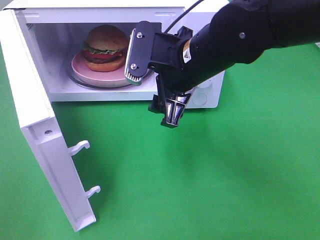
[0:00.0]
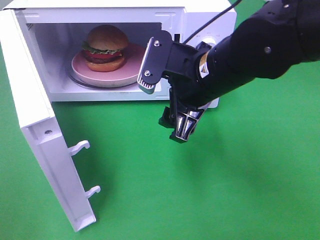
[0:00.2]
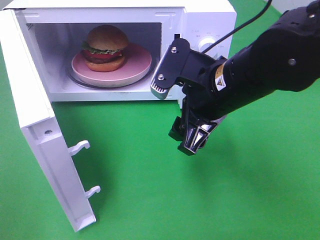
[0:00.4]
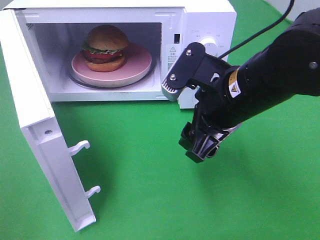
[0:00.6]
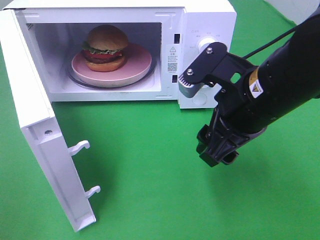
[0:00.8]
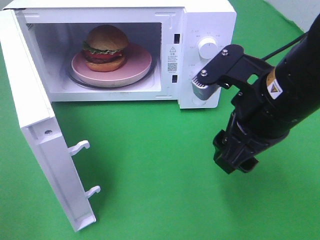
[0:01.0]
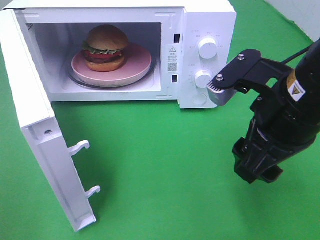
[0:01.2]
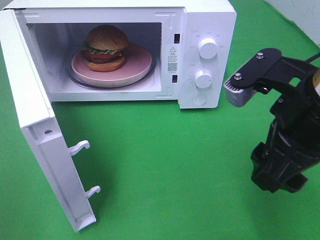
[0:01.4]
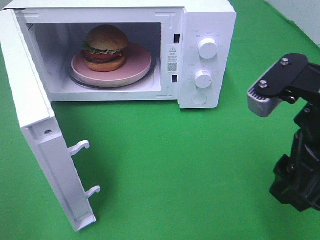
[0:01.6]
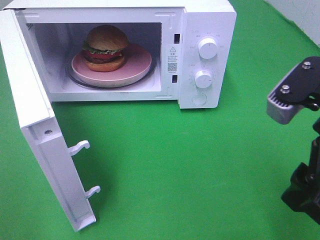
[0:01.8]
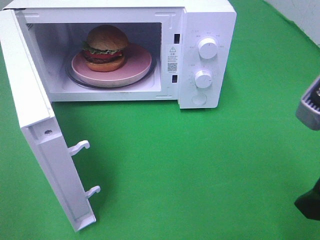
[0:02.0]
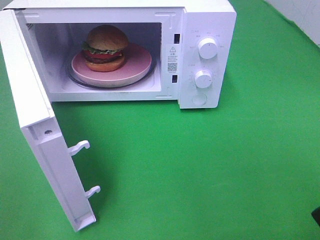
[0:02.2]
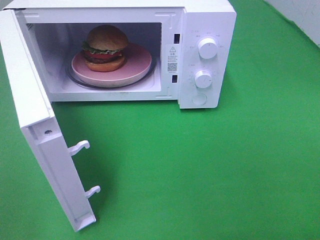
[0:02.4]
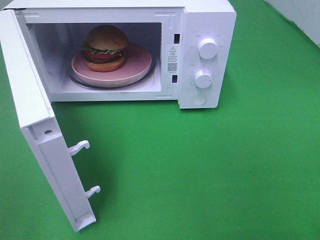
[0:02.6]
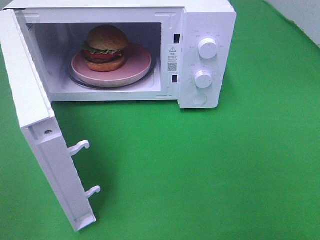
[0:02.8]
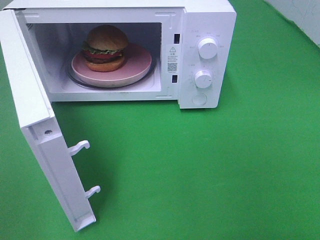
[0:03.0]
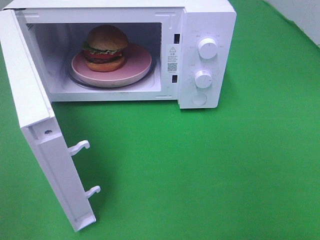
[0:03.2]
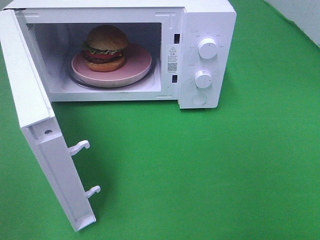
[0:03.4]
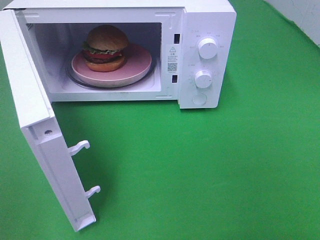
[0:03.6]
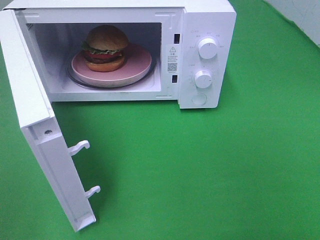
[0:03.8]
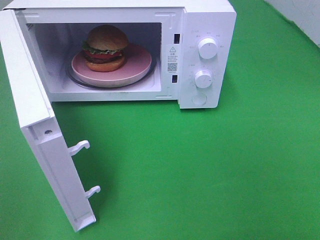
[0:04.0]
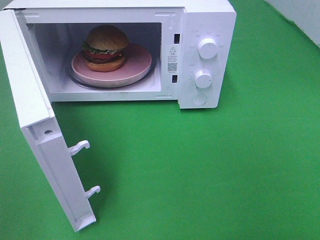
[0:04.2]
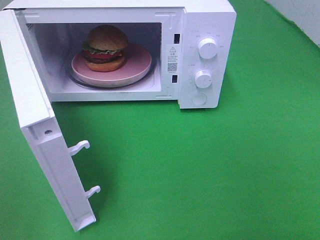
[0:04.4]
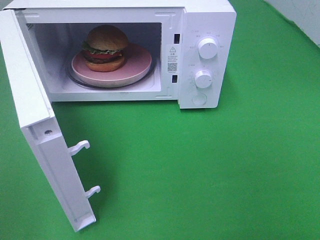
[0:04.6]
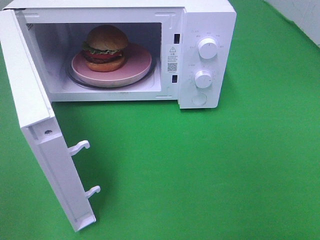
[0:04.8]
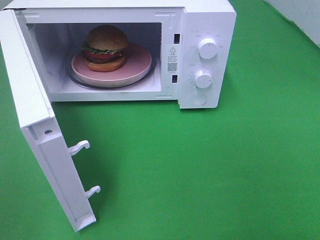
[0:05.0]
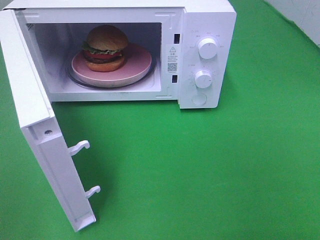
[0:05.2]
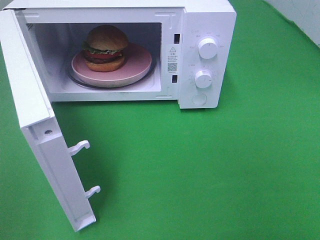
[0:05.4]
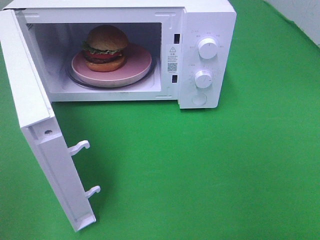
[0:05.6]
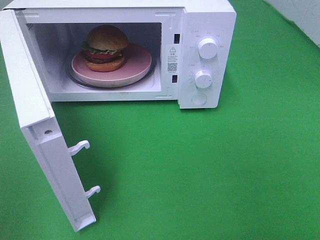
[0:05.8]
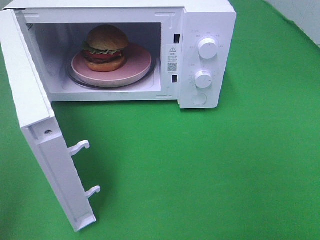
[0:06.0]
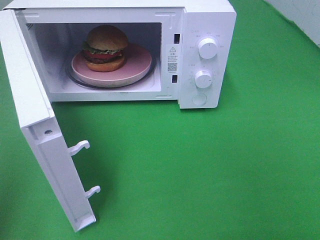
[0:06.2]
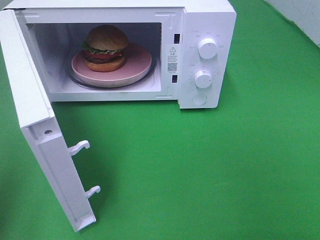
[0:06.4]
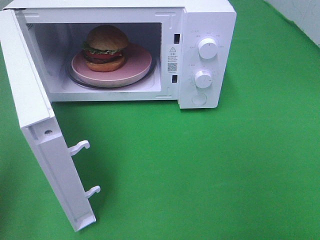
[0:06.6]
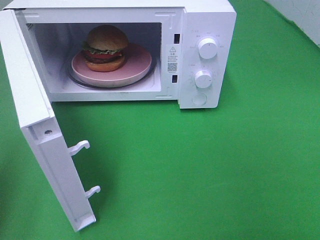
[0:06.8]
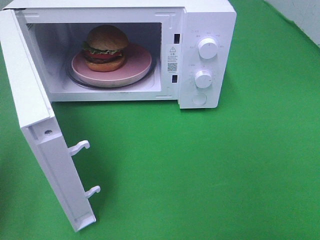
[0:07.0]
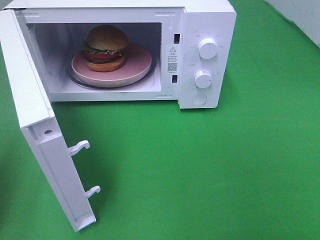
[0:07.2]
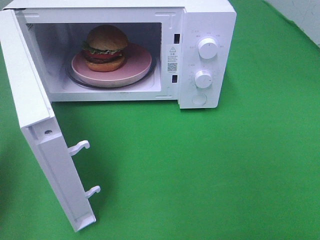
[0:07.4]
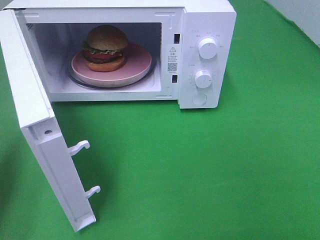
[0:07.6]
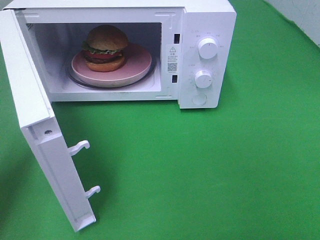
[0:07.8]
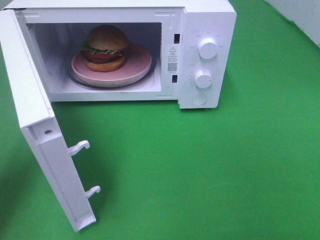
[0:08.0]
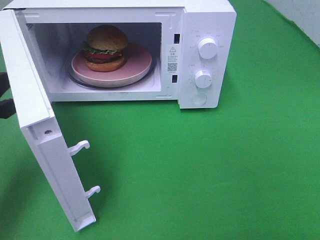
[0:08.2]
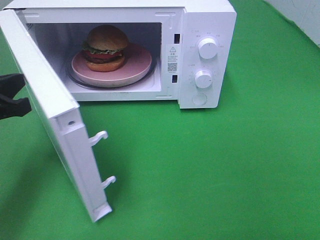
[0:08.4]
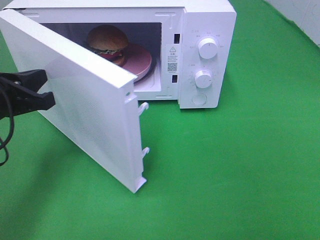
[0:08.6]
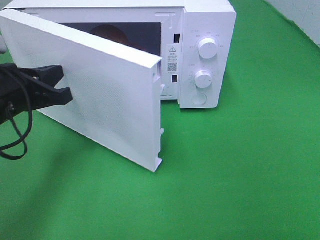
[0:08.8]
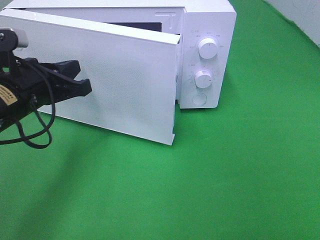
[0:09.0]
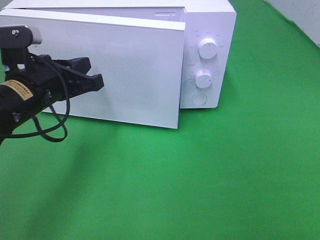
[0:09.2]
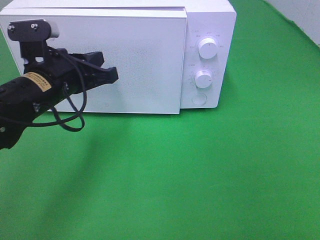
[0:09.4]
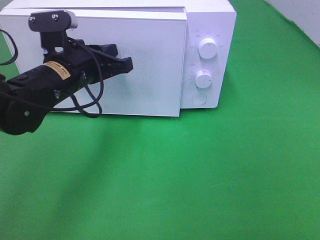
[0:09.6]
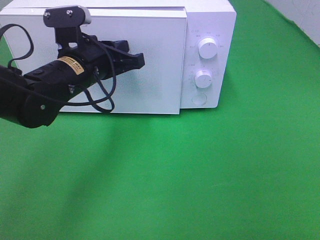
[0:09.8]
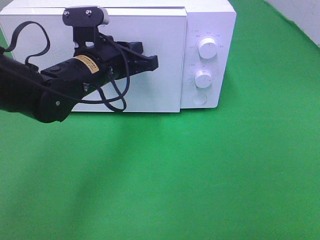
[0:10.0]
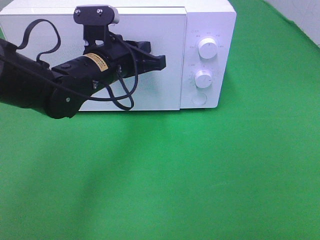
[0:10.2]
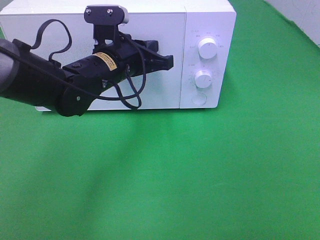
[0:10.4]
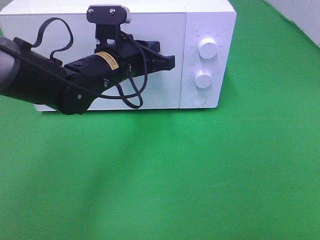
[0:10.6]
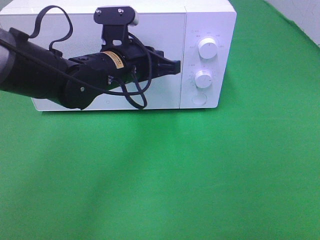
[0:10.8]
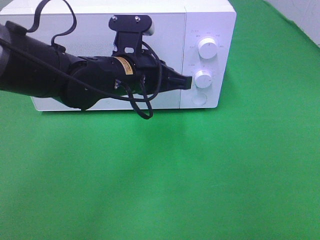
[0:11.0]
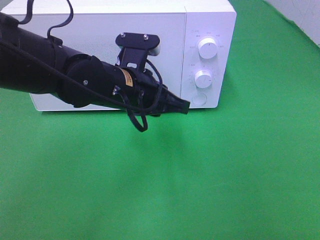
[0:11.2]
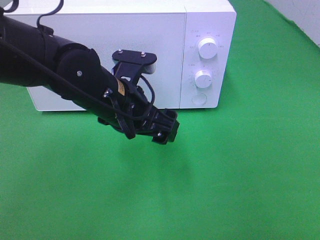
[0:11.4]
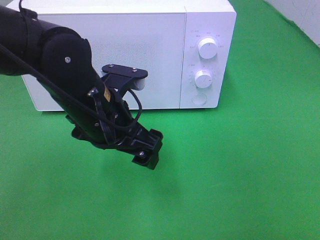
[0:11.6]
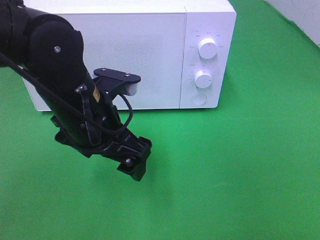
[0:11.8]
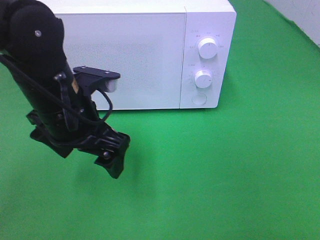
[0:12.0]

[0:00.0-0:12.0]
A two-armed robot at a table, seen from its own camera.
Task of the whole recording: Heat the burger.
Step, 0:00.0 to 0:11.0: Left hand: close the microwave door.
0:00.0 to 0:01.6: The right gripper travels backward and to the right by about 20 cm.
0:01.6 to 0:03.0: The right gripper travels backward and to the right by about 15 cm.
0:06.0 to 0:07.6: The left gripper goes approximately 15 cm forward and downward, and closes.
0:07.6 to 0:09.0: The left gripper is displaced to the right and forward by about 15 cm.
0:09.0 to 0:10.4: The left gripper moves to the right and forward, about 15 cm.
0:10.4 to 0:12.0: The left gripper travels backward by roughly 10 cm, and opens its fingers.

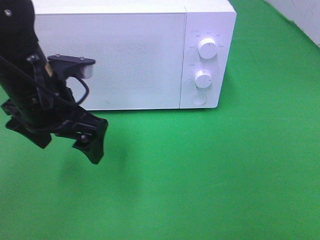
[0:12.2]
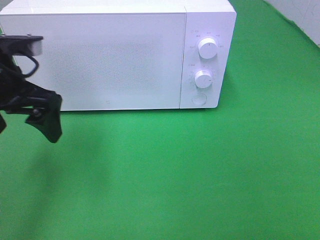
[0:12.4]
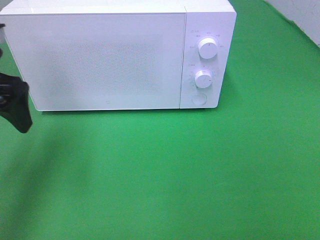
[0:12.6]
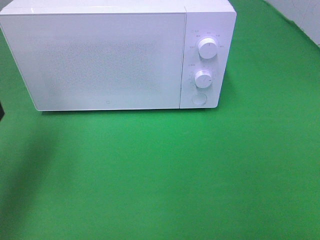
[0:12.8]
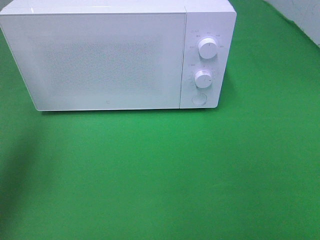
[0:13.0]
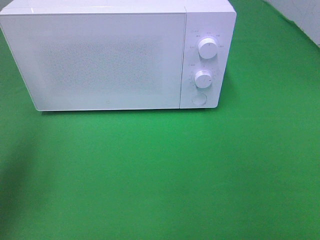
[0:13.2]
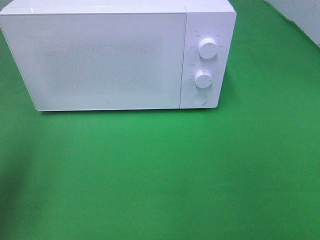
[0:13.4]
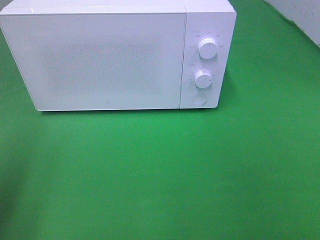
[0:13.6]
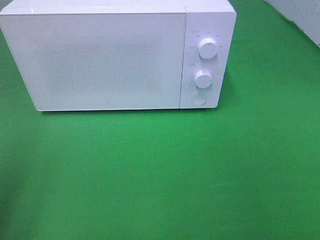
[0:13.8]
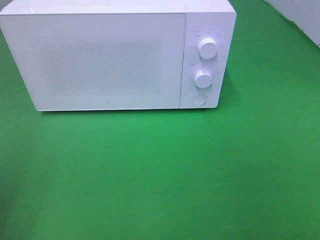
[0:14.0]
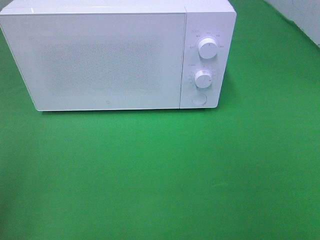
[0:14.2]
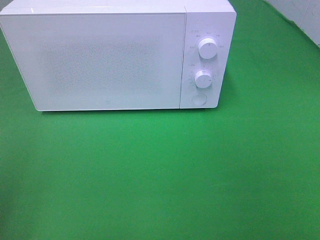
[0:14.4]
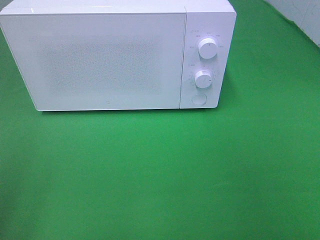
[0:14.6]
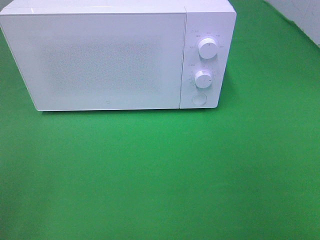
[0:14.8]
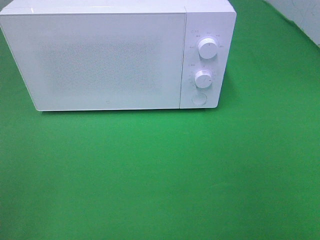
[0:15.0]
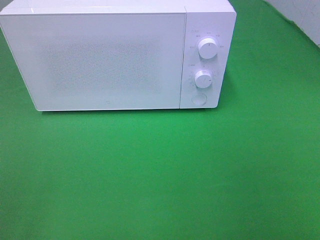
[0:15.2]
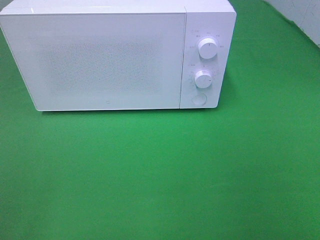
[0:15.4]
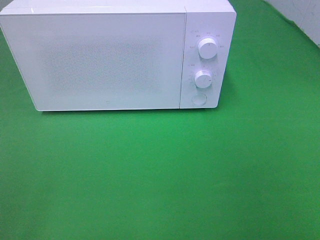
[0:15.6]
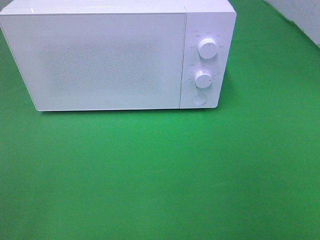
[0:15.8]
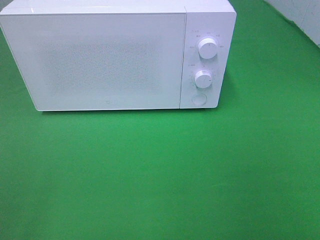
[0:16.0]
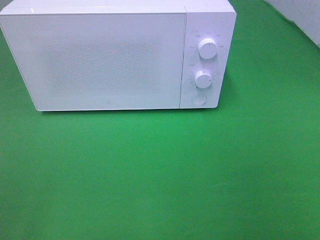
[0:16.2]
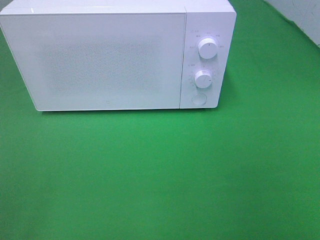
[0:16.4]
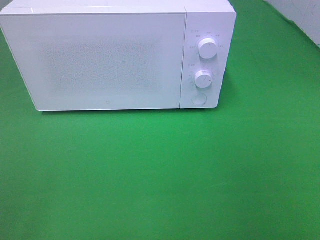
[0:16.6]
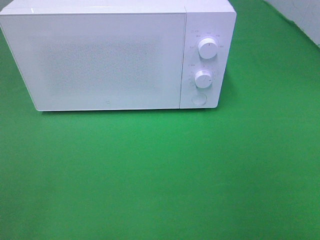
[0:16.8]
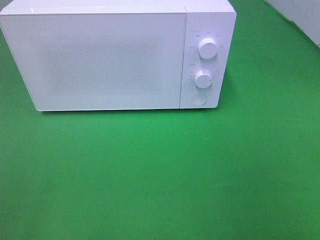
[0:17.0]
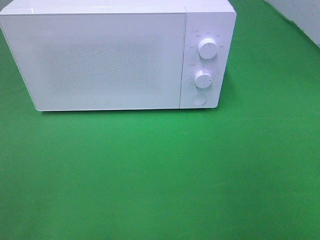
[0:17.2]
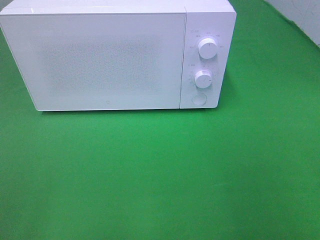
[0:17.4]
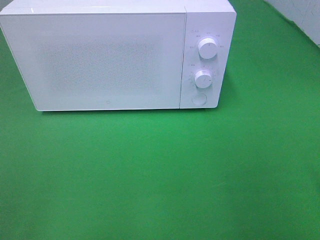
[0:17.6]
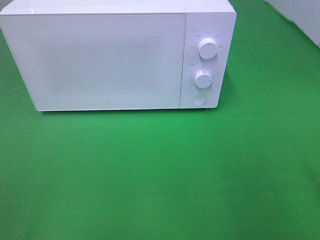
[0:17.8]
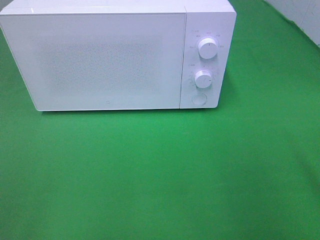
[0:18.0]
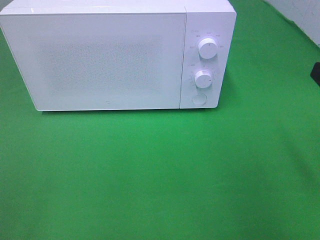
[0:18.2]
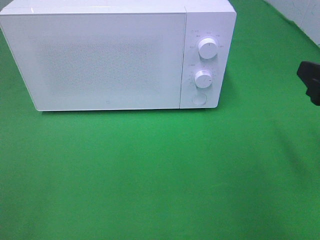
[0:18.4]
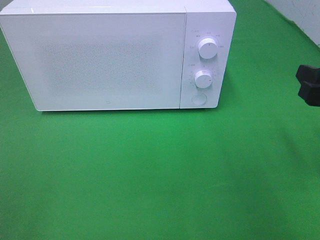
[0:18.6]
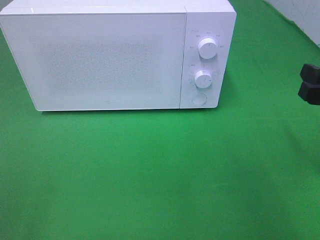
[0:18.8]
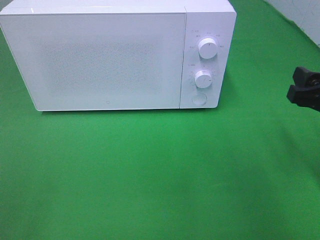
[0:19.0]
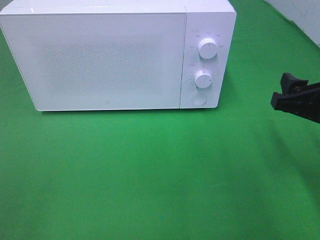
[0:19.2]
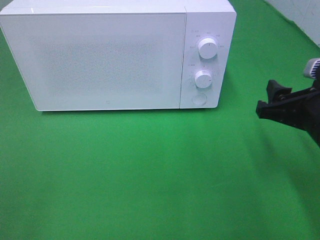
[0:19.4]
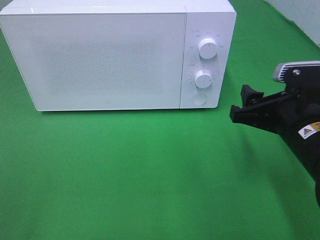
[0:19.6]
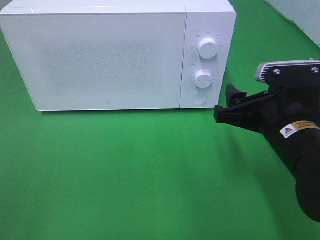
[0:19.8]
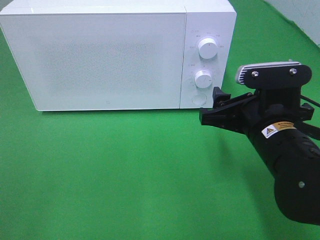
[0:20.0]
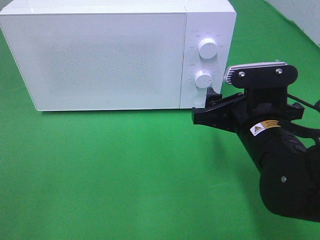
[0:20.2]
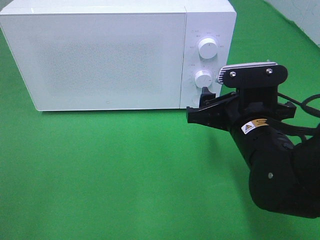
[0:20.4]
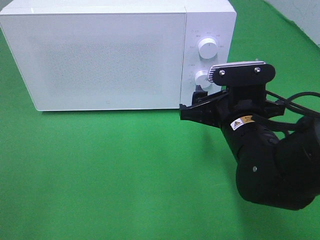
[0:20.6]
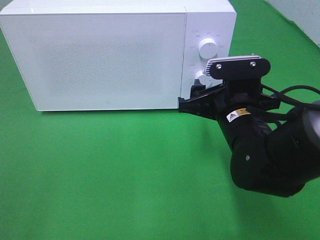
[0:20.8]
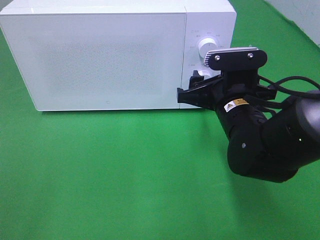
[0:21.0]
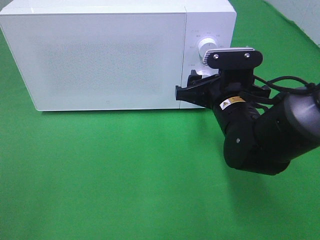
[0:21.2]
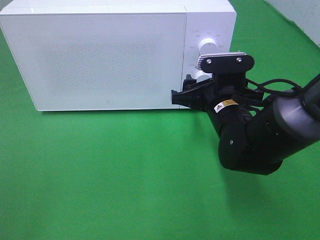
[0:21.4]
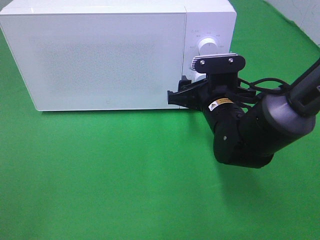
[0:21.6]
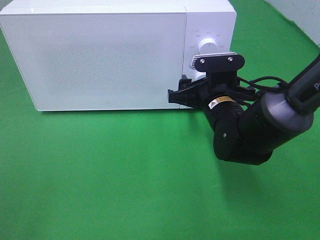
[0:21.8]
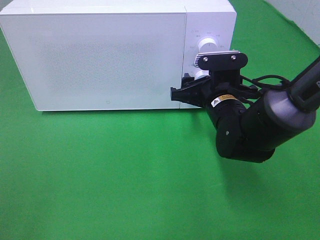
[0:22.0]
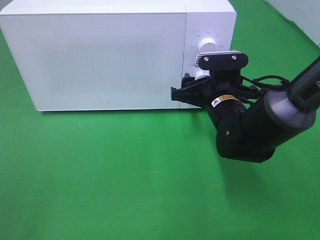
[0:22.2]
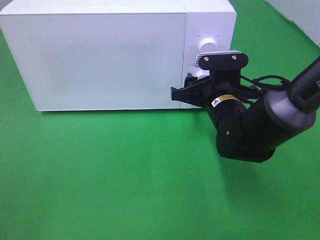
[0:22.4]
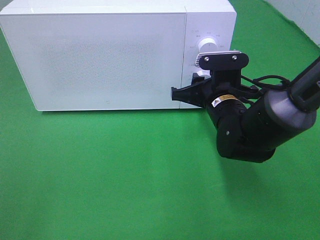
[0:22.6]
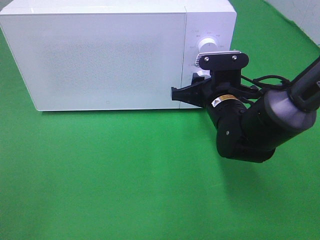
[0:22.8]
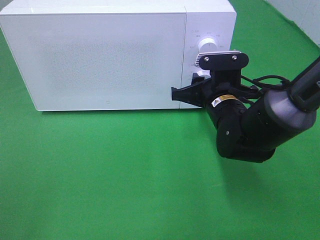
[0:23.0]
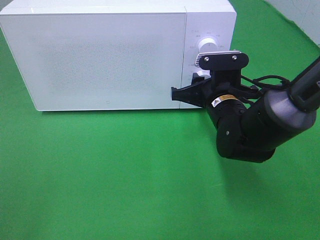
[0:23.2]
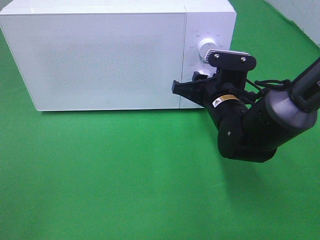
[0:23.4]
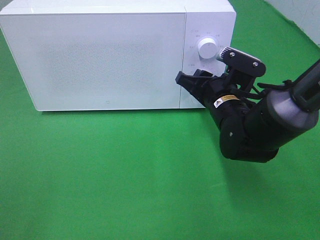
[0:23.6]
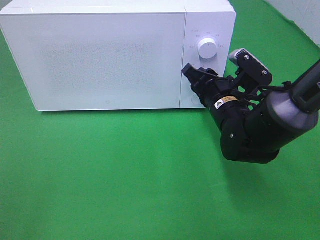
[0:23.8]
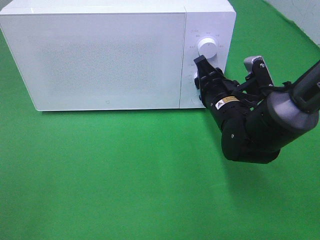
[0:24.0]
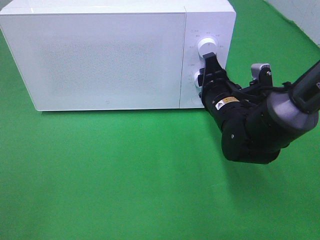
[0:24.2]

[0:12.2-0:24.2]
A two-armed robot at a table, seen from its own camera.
Task of the whole recording: Heat the burger.
0:12.2 to 0:13.8: The left gripper is displaced to the left and backward by roughly 20 cm.
0:15.2 to 0:16.6: Both grippers stay about where they are.
0:18.2 to 0:19.8: The right gripper moves to the left, downward and forward, about 15 cm.
0:19.8 to 0:21.2: The right gripper moves forward, roughly 10 cm.
0:21.2 to 0:22.6: The right gripper closes up.
